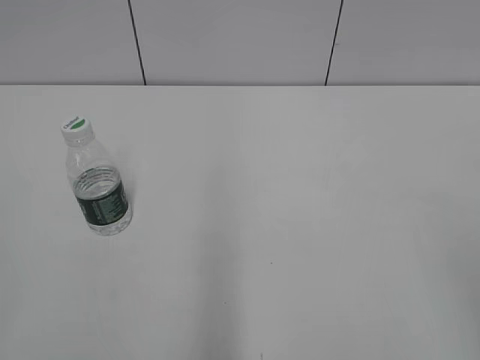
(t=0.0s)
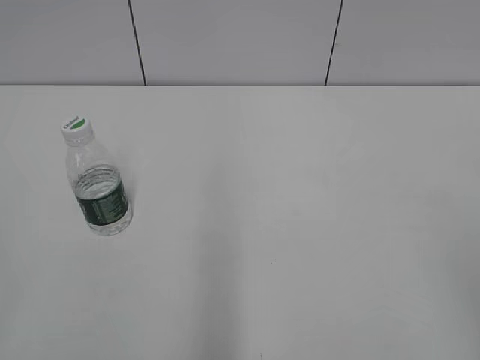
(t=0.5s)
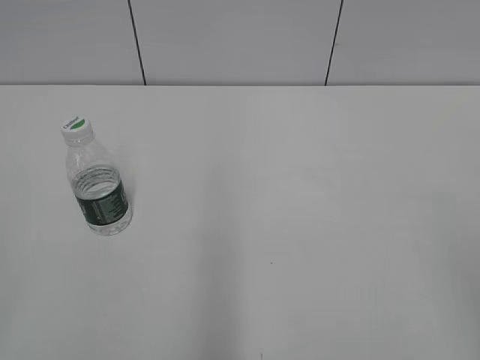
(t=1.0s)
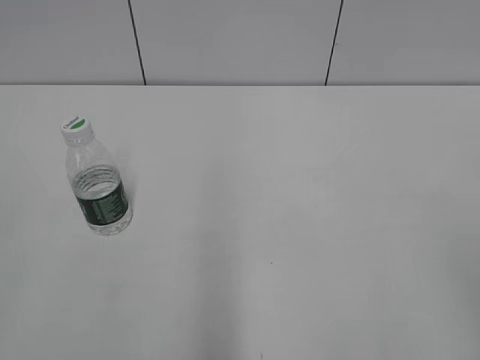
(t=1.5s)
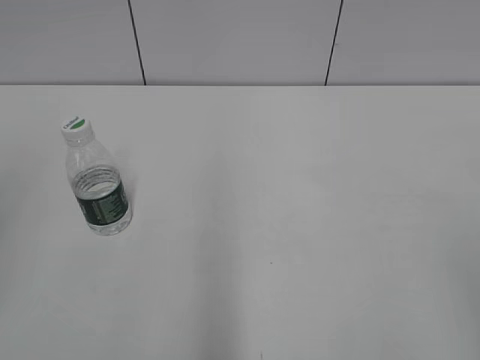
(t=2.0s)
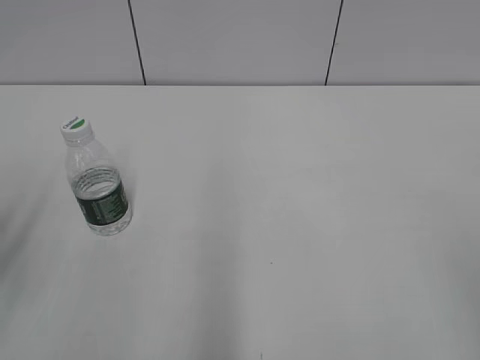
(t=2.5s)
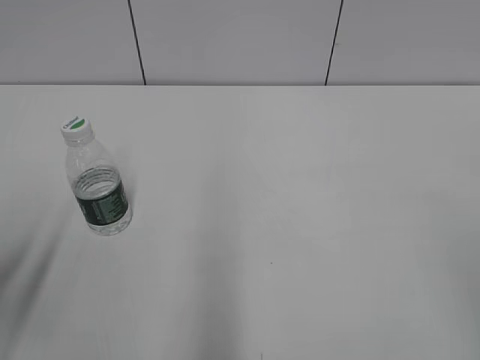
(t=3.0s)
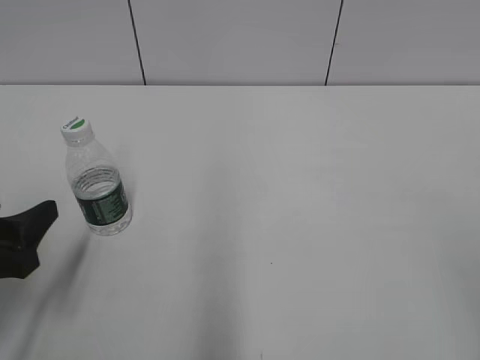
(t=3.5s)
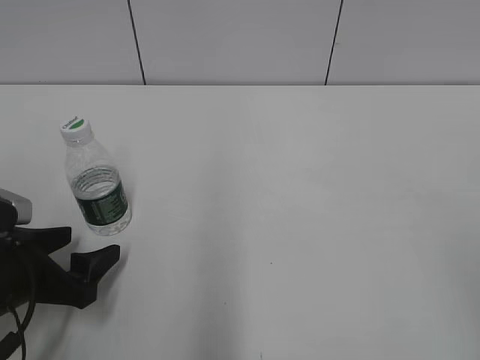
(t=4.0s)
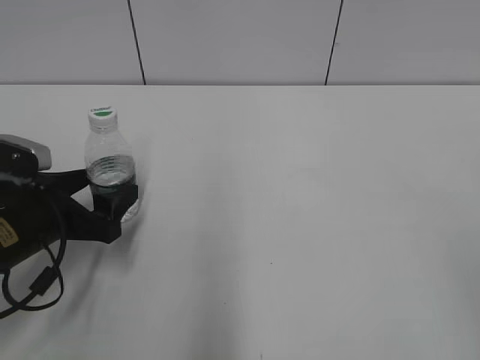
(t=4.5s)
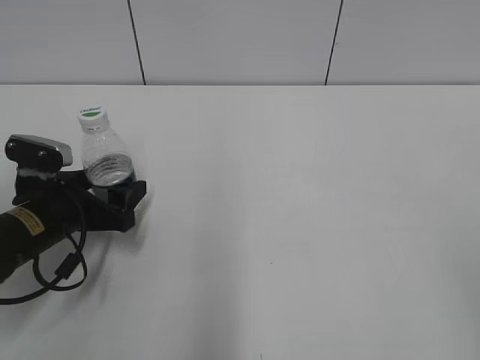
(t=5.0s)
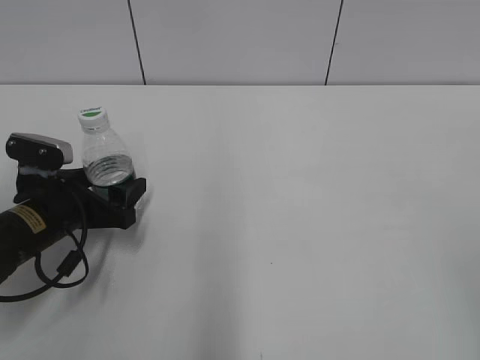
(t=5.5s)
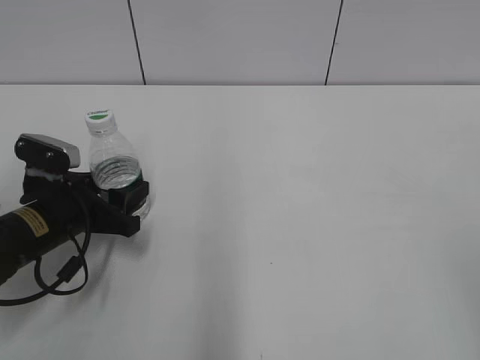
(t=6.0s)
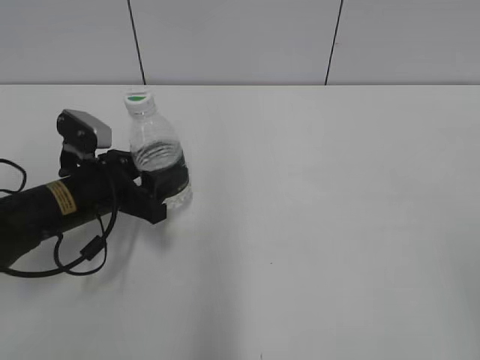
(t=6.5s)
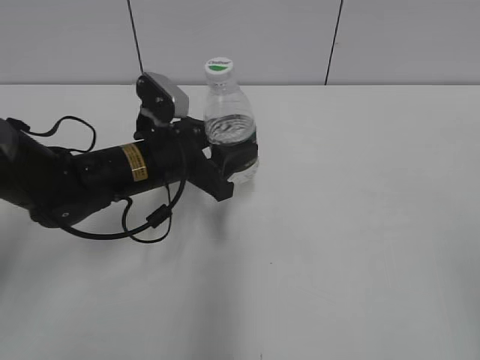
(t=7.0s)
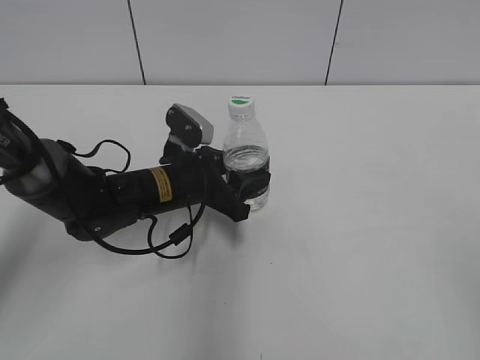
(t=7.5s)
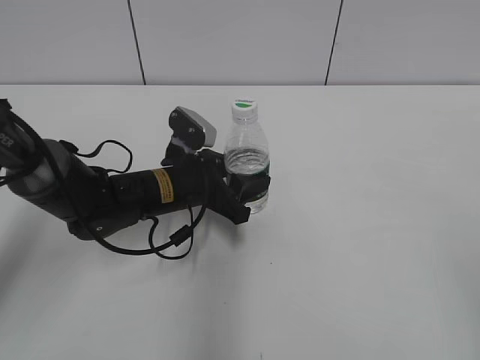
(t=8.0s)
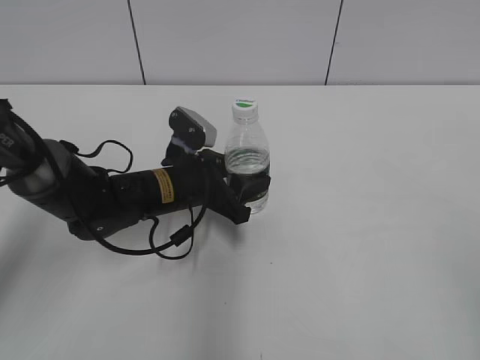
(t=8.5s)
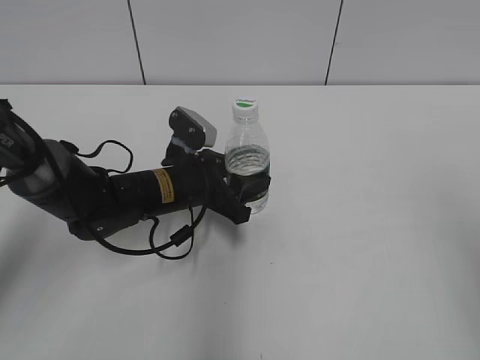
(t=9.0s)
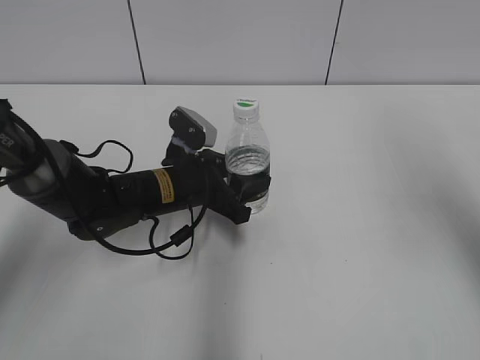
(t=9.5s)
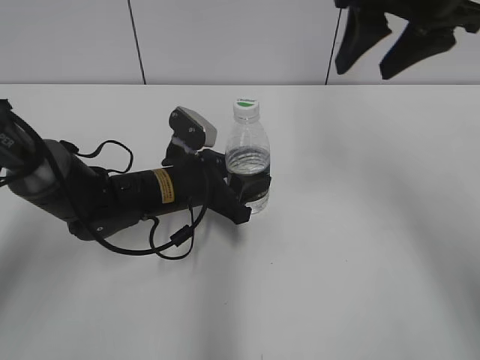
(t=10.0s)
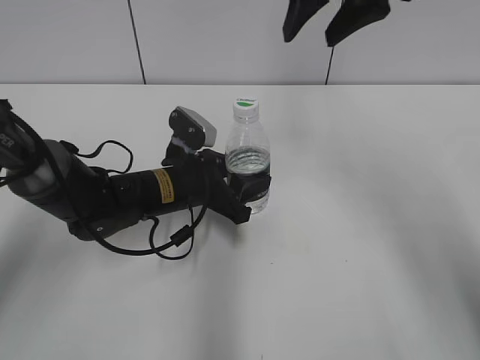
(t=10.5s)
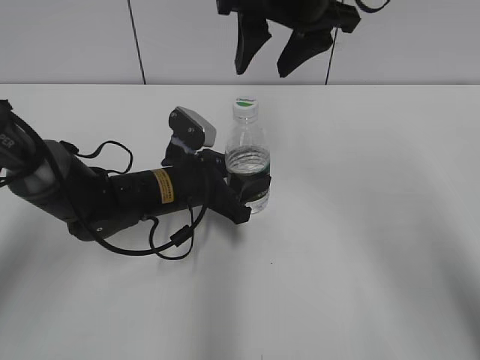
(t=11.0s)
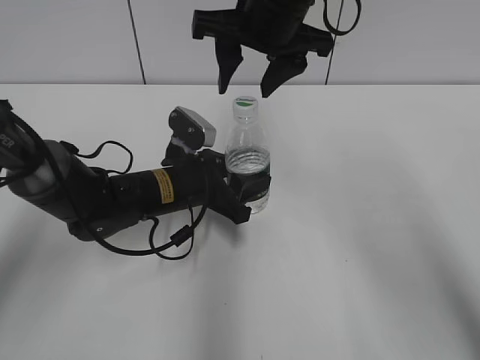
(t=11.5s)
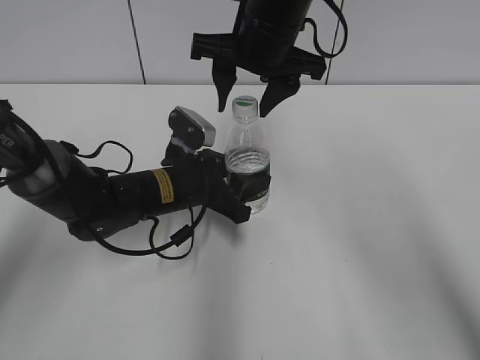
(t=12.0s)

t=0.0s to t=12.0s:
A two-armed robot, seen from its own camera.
Step, t=0.0s to t=5.5s: Grasp the bottle and move it to the center of the table with the left gripper.
Step, t=6.0s to t=8.0s: Lift the bottle and move it to the center of the table with the left gripper.
t=2.0s to t=4.0s: The left gripper heads downward, covering some 25 cm, and opens.
t=4.0s to t=6.0s: The left gripper heads forward, covering approximately 10 cm, and closes its fingers.
t=6.0s to t=8.0s: The left gripper goes roughly 15 cm to the right and forward.
t=8.0s to t=10.0s: The right gripper moves forward and to the left, some 35 cm.
t=10.0s to t=12.0s: The right gripper heads to the left and downward, covering roughly 15 cm.

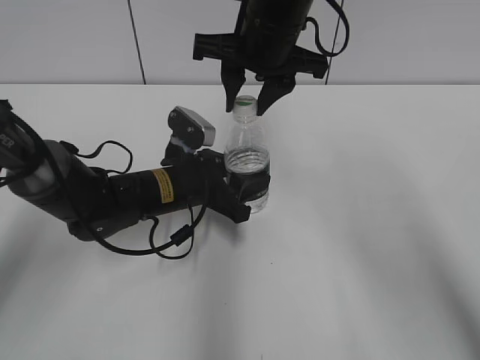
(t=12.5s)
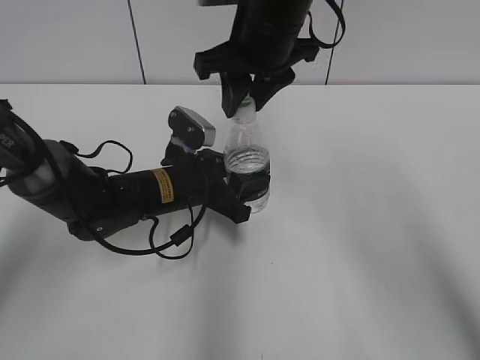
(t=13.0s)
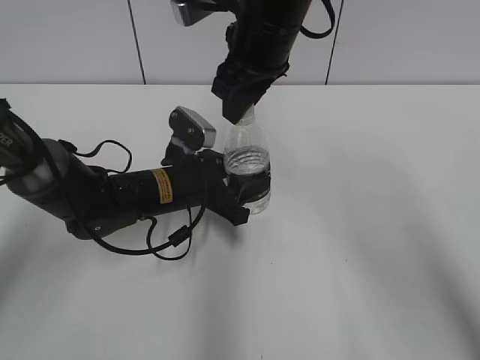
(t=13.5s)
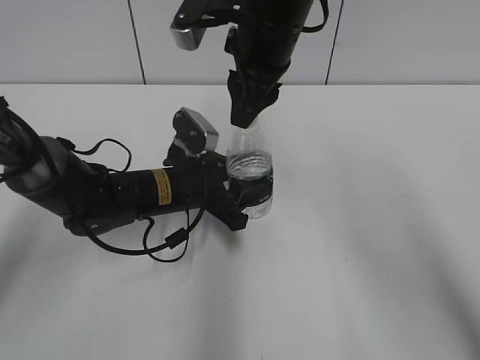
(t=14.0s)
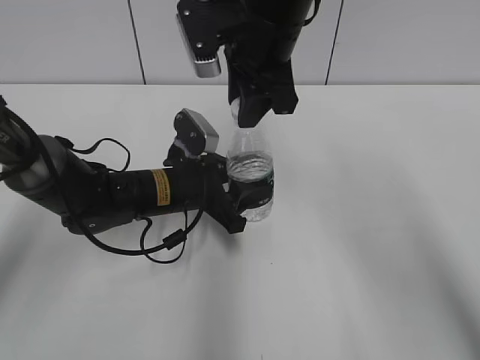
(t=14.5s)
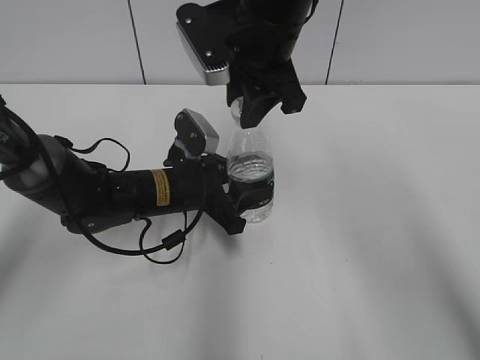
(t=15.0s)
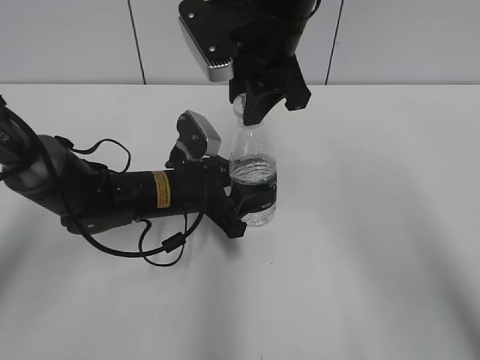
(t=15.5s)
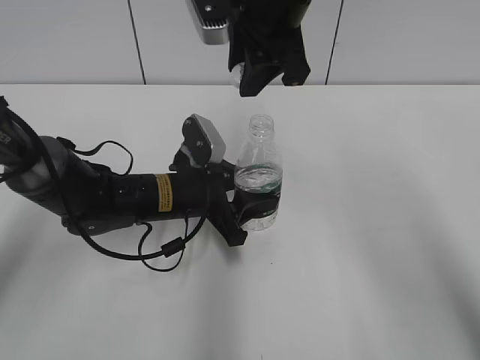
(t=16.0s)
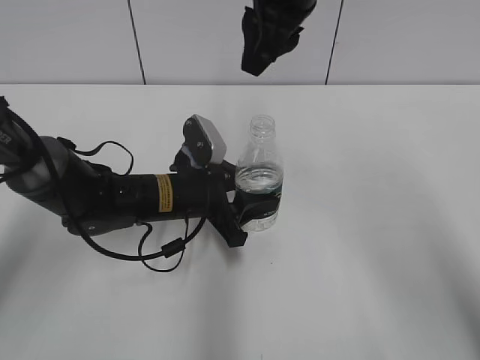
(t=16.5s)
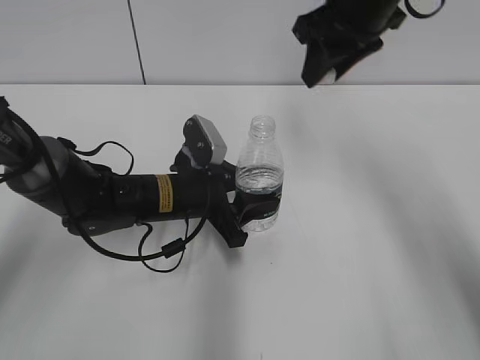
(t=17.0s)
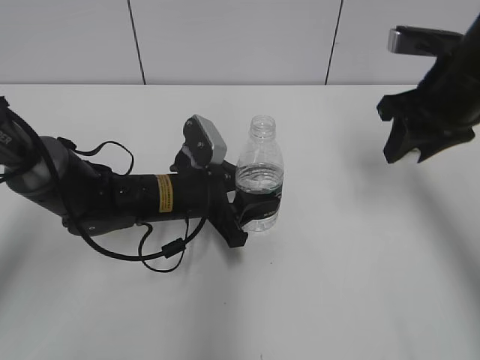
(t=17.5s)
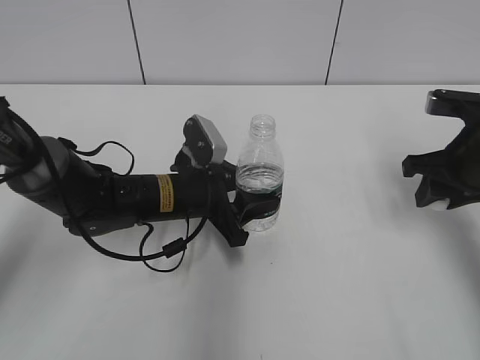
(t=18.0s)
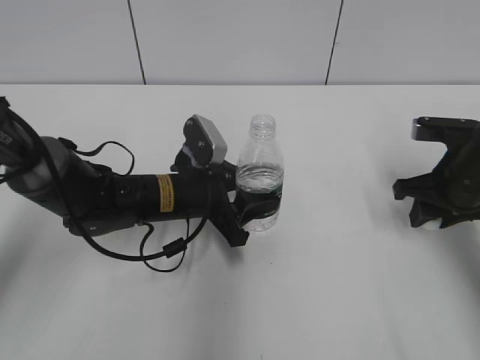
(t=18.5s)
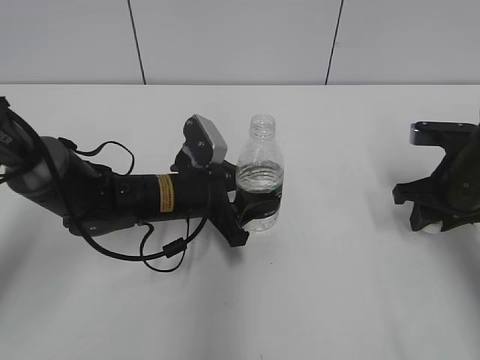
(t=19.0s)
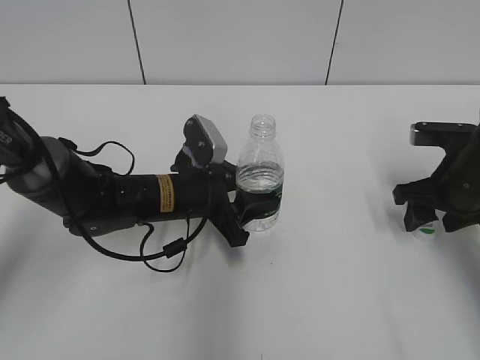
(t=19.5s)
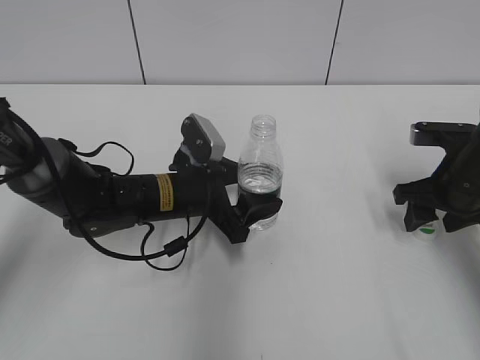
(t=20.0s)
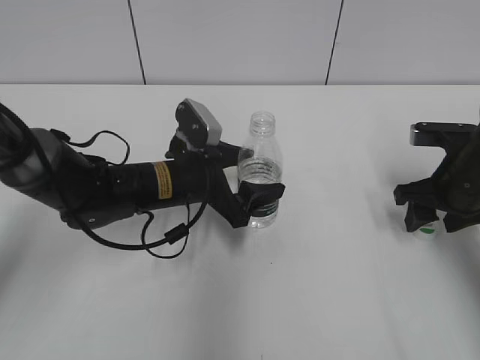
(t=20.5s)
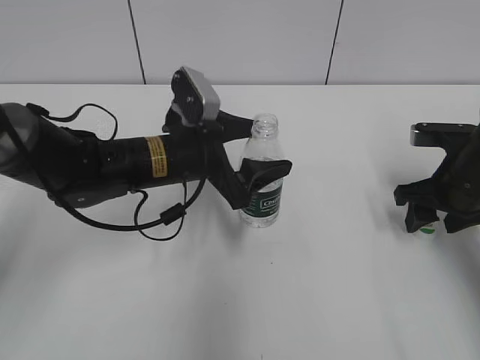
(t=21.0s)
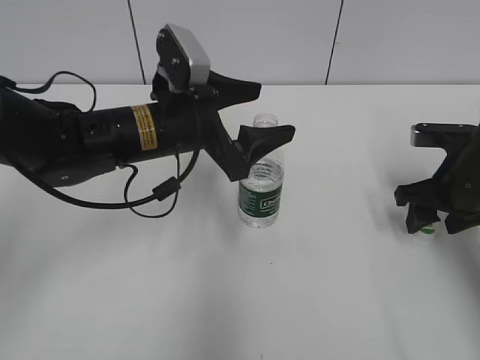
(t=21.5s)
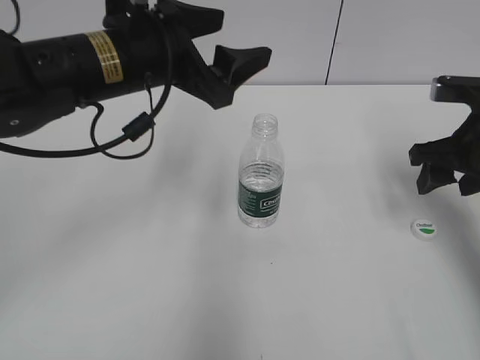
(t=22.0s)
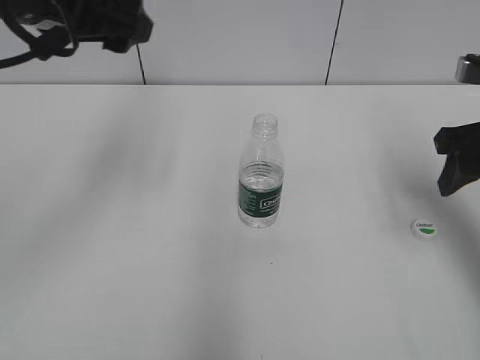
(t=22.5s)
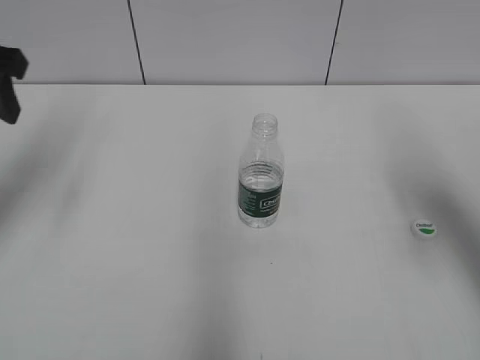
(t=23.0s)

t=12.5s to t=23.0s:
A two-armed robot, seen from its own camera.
Step, t=12.5s to t=16.0s: Unscrew the bottle cap with the right gripper while holding the bottle with the left gripper.
Step, t=16.5s to t=19.5s: Place the bottle cap on the table with the right gripper.
Step, t=20.0s to t=22.0s: Place the bottle on the table with the left gripper.
t=14.5s to t=16.5s: The right gripper moves upward, approximately 5 cm.
t=16.5s to t=19.0s: The right gripper shifts about 30 cm to the right and downward.
t=19.0s to t=21.0s: The right gripper opens its fingers. The left gripper shifts some 5 cm upward, and opens.
t=21.0s to t=23.0s: The right gripper heads upward and backward, covering approximately 15 cm. Meanwhile the left gripper heads upward and to the left, covering some 25 cm.

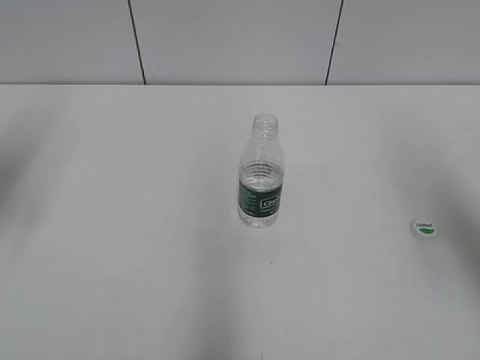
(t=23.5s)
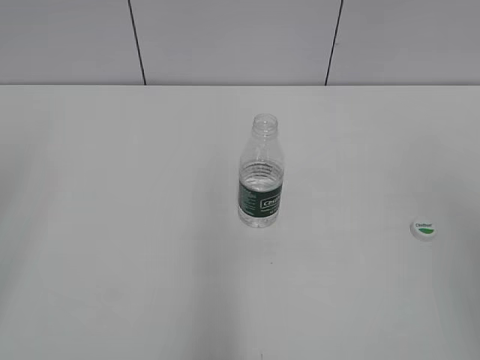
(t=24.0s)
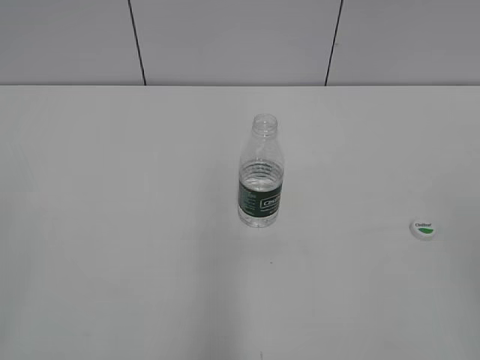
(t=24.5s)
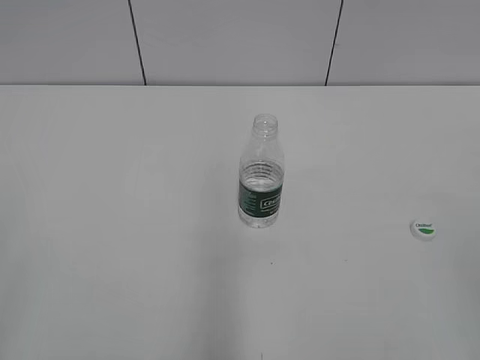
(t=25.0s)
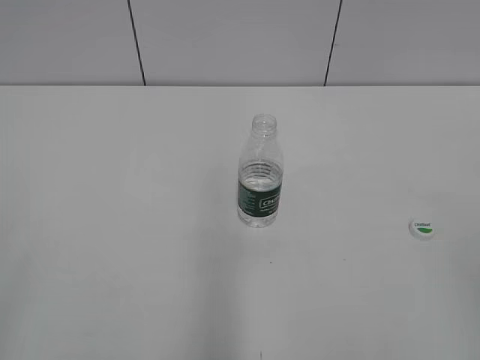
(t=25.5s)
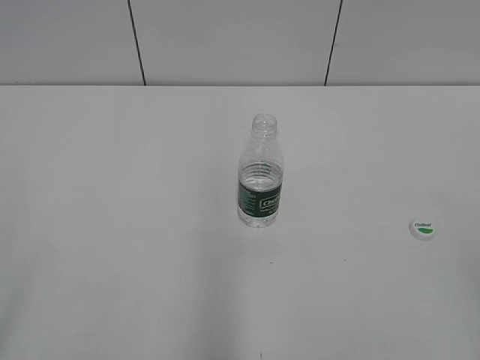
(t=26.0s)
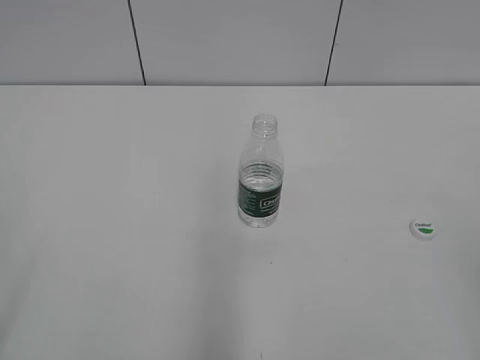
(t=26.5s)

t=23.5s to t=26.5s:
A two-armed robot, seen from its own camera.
t=23.5s to t=25.0s: The right gripper moves backward, approximately 20 cm.
